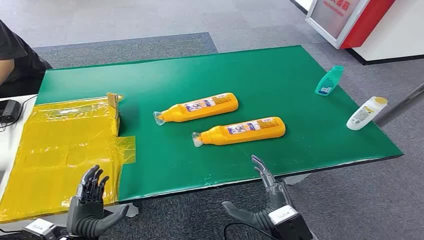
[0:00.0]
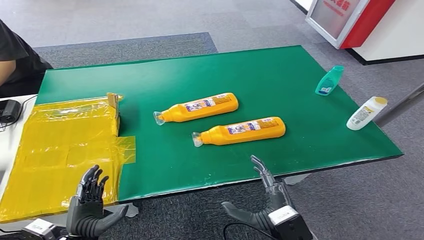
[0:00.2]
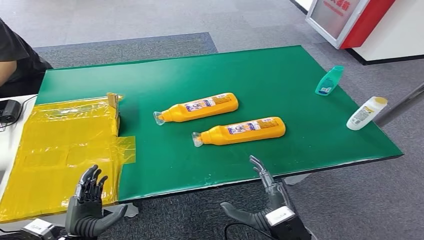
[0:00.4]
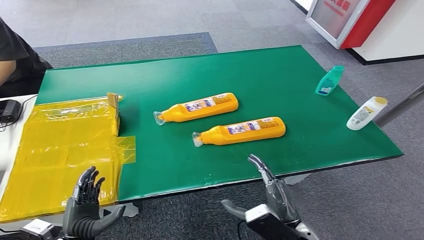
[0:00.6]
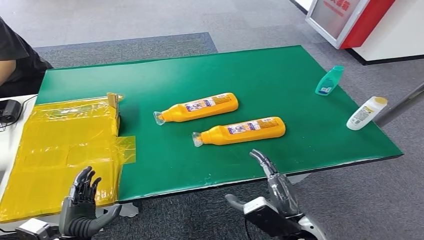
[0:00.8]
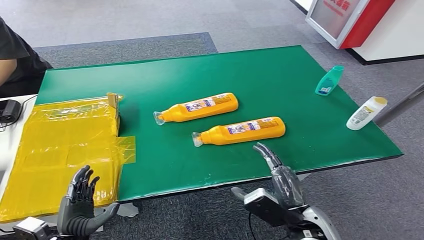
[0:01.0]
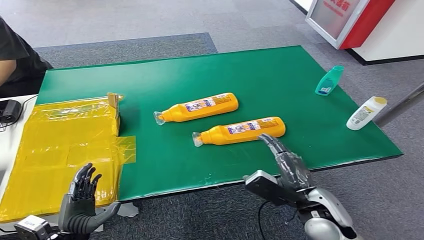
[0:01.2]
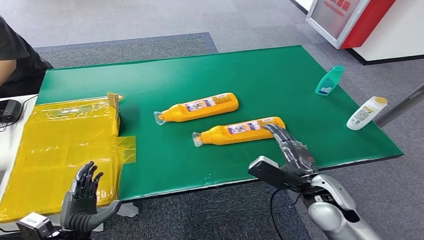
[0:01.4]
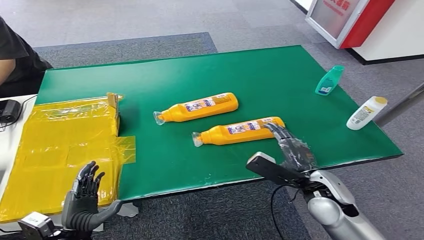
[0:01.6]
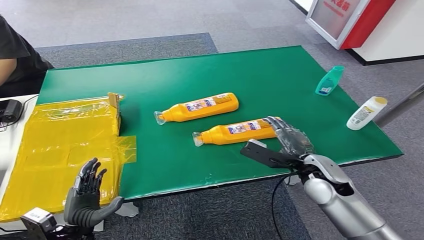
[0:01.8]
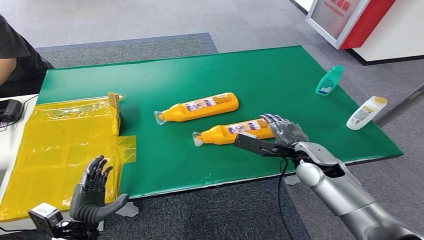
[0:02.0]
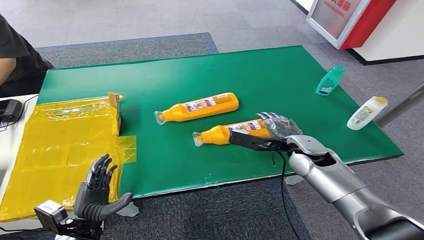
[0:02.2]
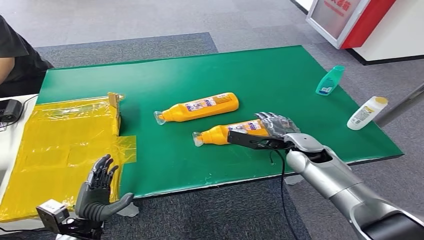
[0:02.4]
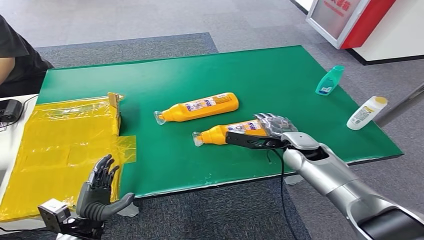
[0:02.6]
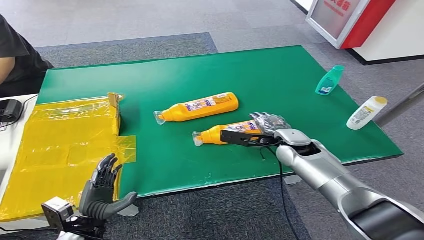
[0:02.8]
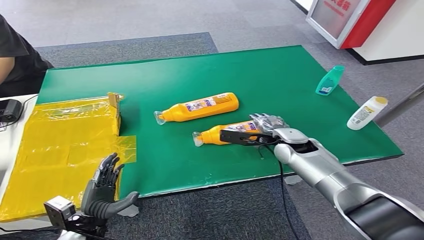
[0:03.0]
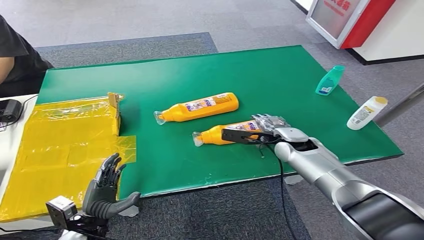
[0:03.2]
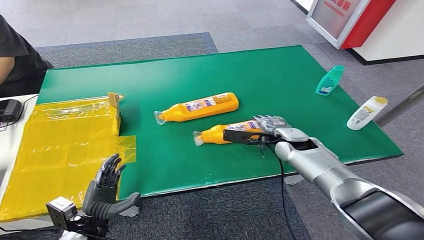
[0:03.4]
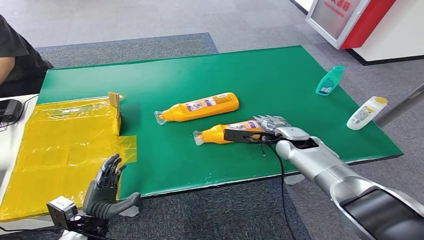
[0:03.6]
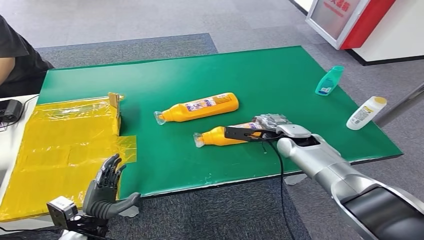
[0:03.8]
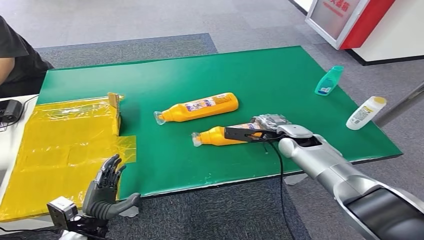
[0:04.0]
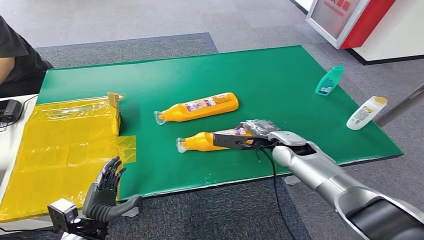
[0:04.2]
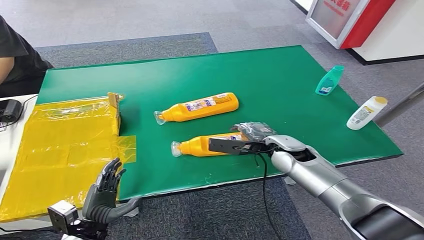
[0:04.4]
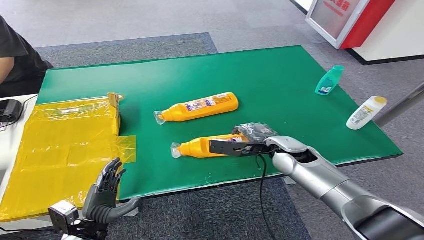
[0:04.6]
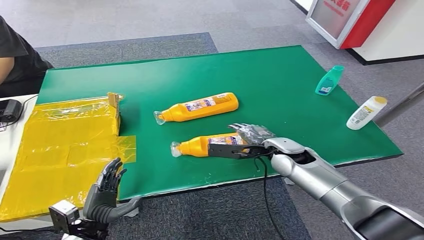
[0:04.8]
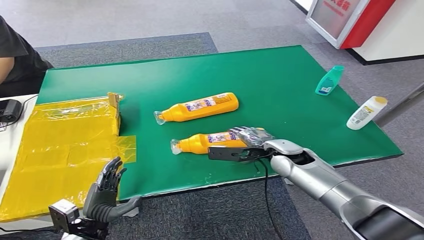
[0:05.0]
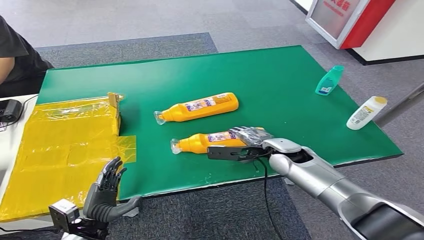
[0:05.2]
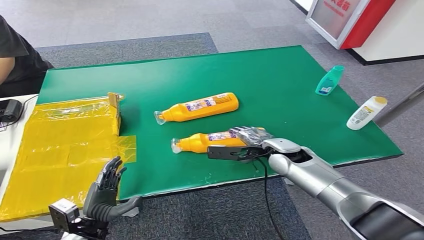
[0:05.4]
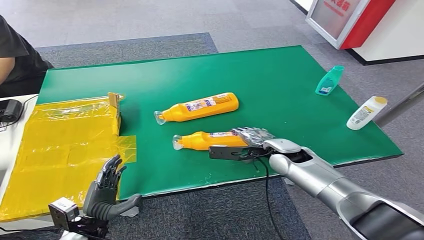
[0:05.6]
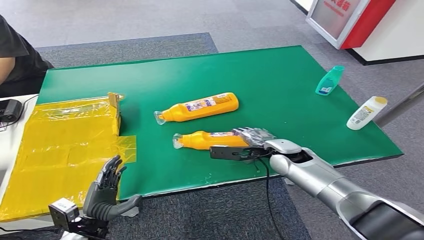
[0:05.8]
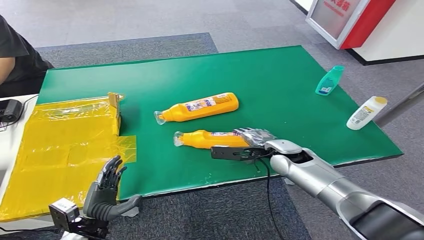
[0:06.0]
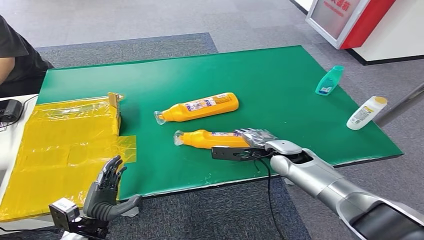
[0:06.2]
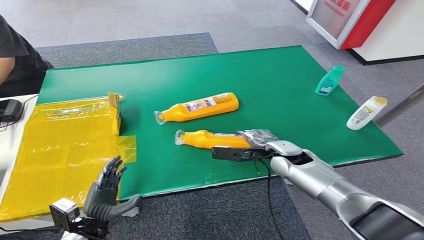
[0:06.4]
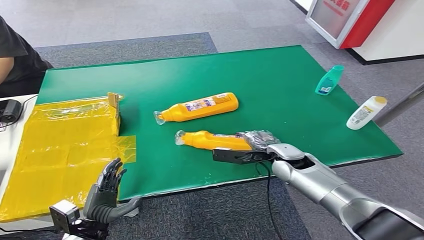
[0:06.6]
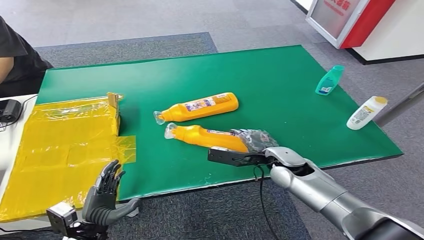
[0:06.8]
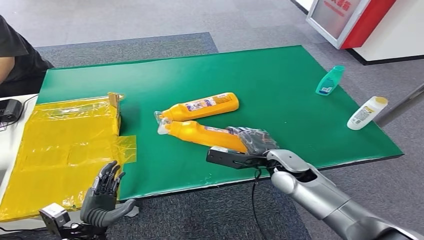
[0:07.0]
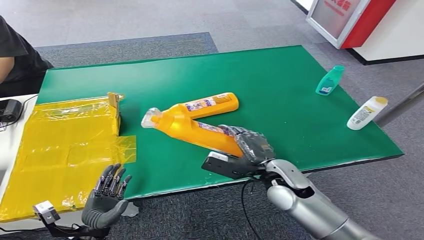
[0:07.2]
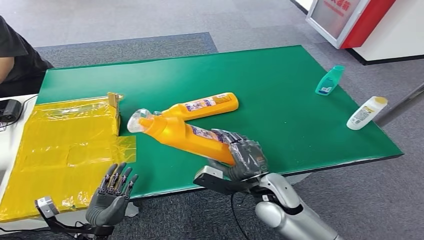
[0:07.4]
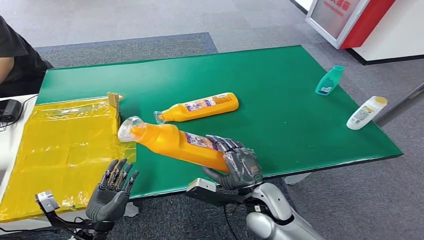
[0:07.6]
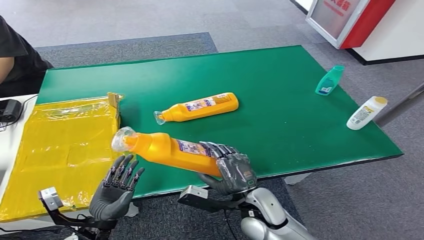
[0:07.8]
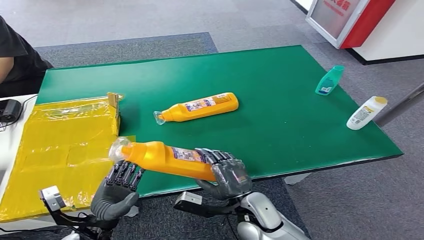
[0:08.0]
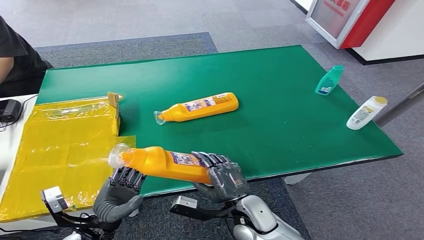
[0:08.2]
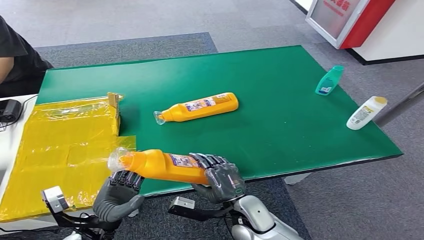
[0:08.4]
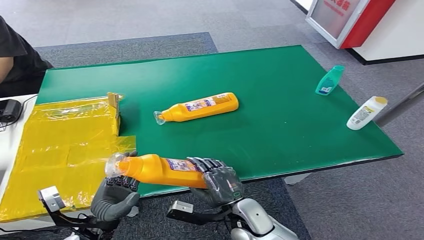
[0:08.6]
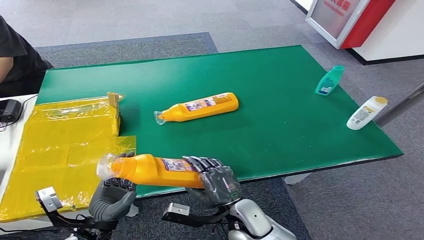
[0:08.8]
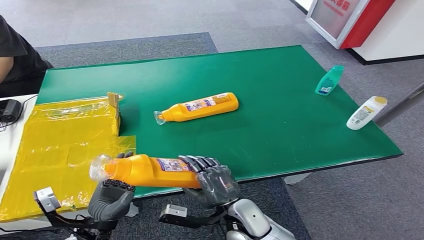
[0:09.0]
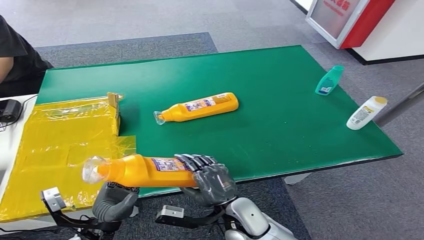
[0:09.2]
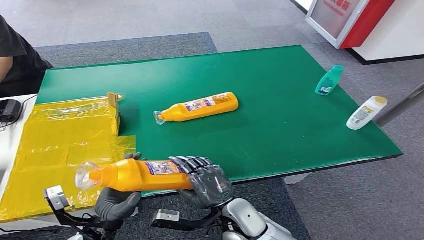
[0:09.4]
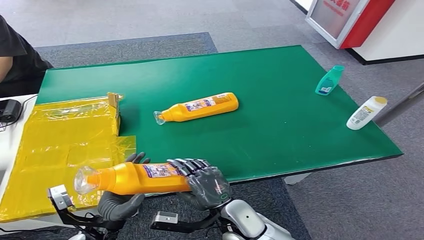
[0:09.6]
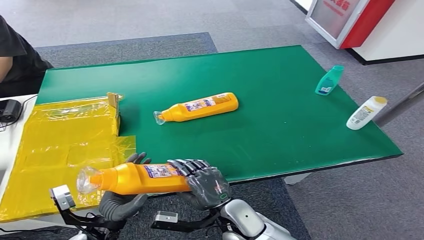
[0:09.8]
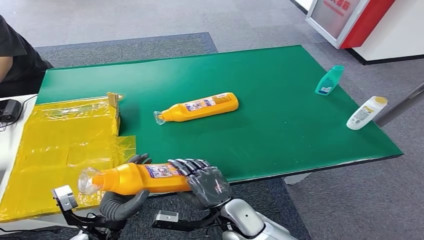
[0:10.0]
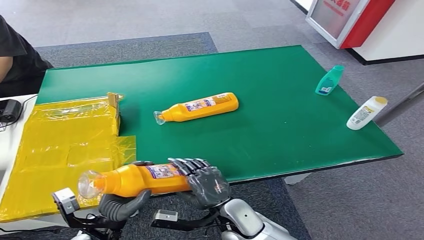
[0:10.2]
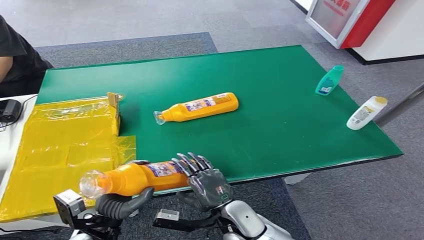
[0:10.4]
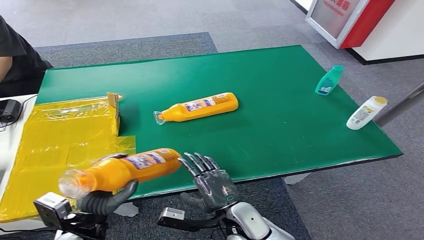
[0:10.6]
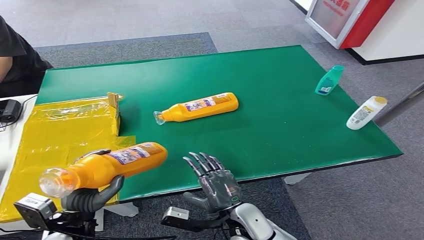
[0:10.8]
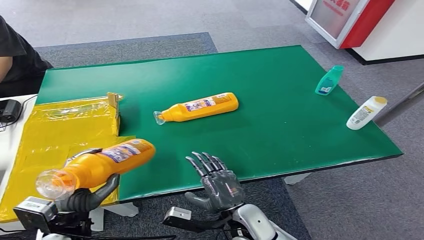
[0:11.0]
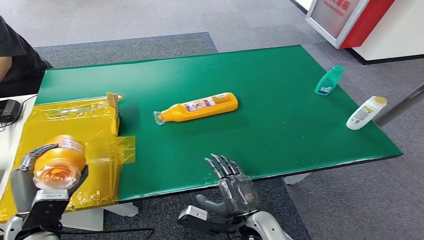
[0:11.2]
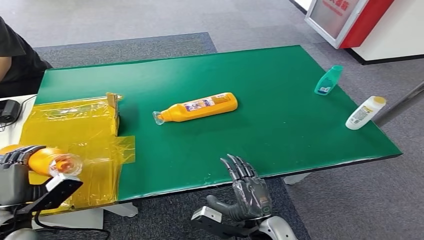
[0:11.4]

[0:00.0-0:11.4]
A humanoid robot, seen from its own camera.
Step, 0:00.0 to 0:07.6: Pick up the bottle from the table.
0:01.4 to 0:02.8: The right hand heads forward, covering some 15 cm.
0:02.8 to 0:05.6: The hands make only small movements.
0:05.6 to 0:07.2: The right hand moves backward, some 10 cm.
0:07.2 to 0:08.6: The left hand moves upward, some 5 cm. The right hand moves to the left, downward and backward, about 15 cm.
0:08.6 to 0:10.0: The hands move only a little.
0:10.0 to 0:11.4: The right hand heads to the right and backward, covering about 10 cm; the left hand travels to the left and upward by about 15 cm.

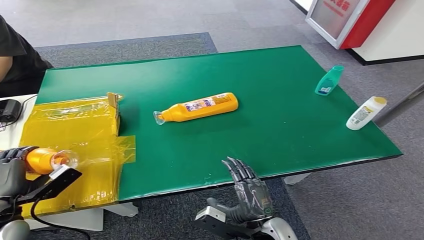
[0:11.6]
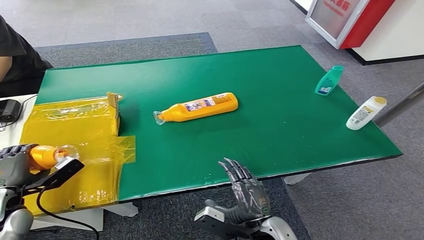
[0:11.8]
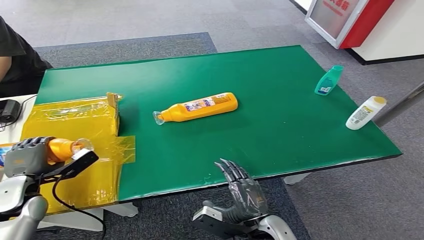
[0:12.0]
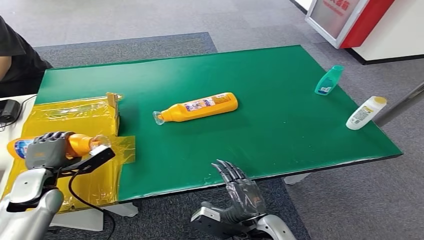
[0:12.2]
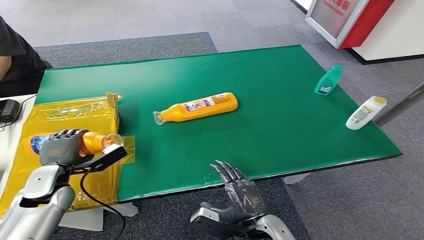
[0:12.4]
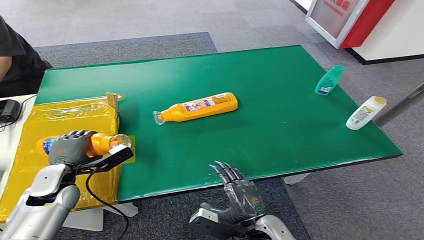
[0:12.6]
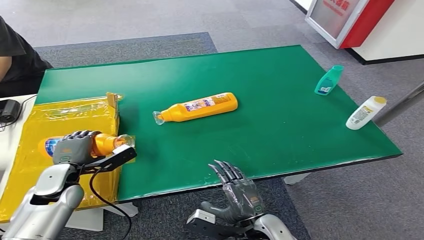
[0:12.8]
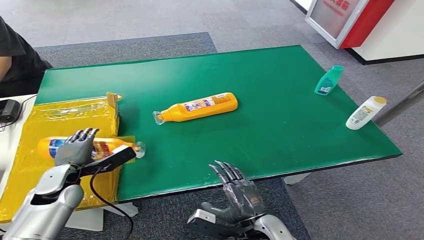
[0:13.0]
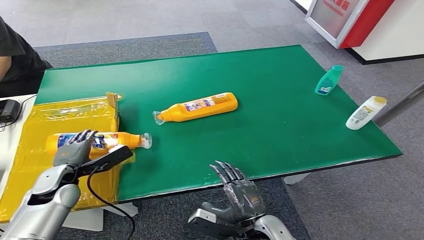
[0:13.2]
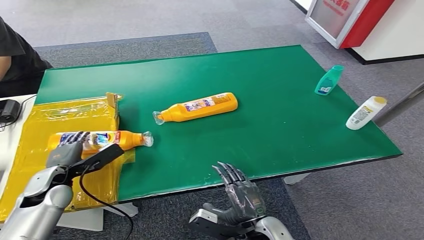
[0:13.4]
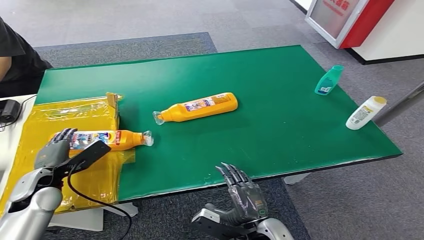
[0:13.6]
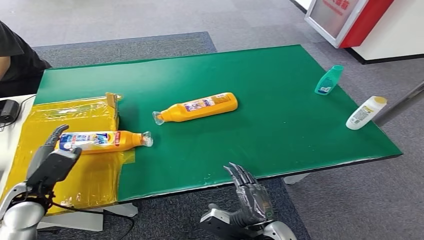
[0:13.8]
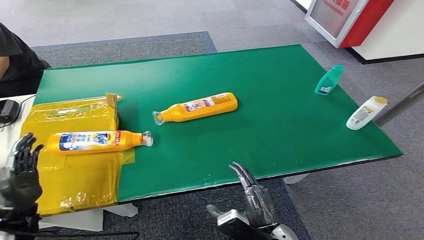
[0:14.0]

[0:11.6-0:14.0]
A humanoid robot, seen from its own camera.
Step, 0:11.6 to 0:14.0: Turn the bottle to the front side.
0:11.6 to 0:12.8: The left hand travels forward and to the right by about 10 cm.
0:12.8 to 0:14.0: The left hand goes some 10 cm backward and to the left.

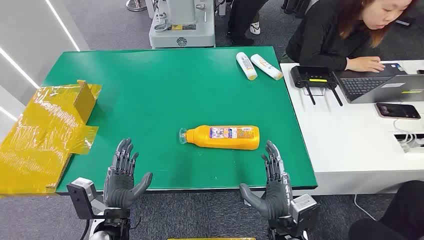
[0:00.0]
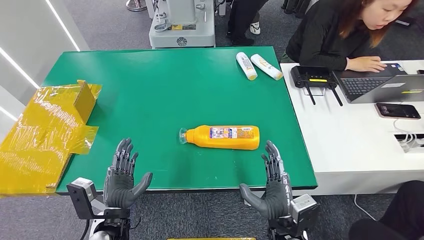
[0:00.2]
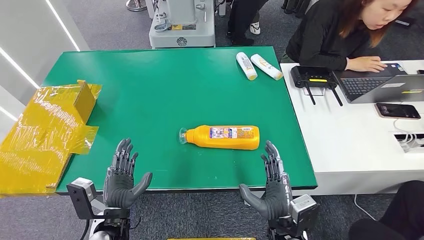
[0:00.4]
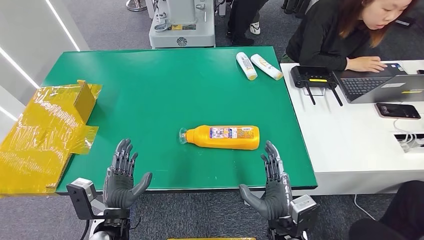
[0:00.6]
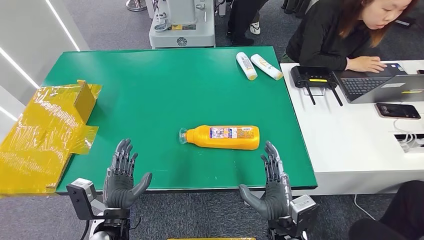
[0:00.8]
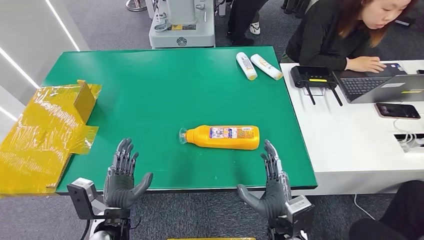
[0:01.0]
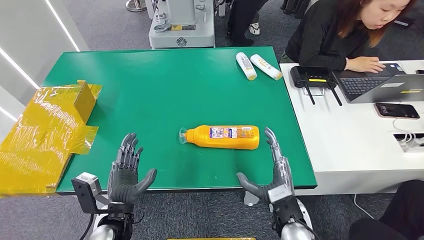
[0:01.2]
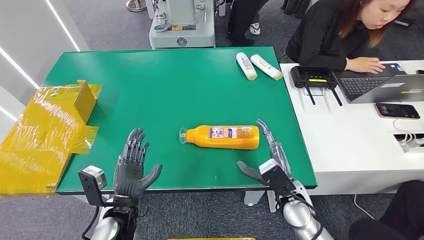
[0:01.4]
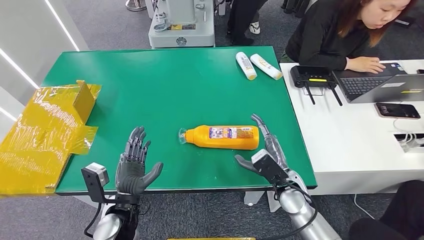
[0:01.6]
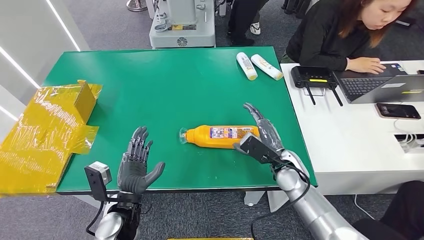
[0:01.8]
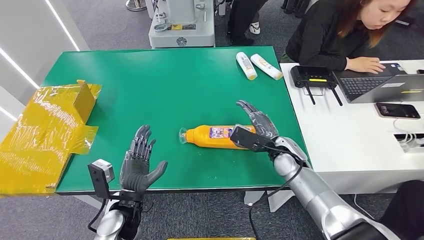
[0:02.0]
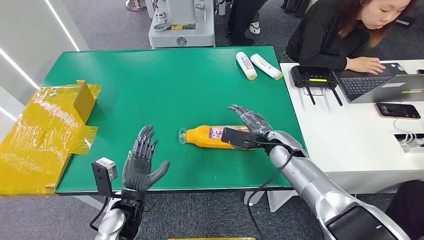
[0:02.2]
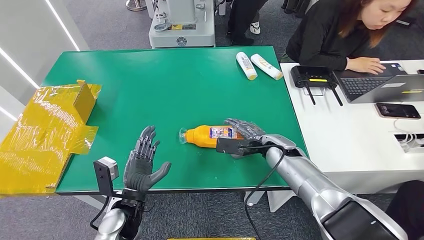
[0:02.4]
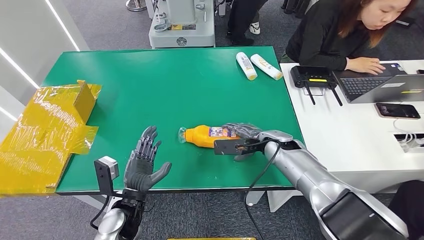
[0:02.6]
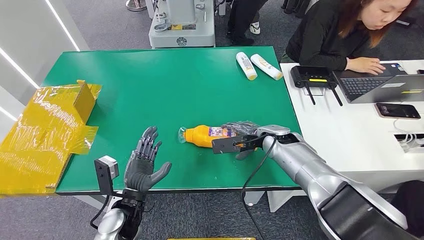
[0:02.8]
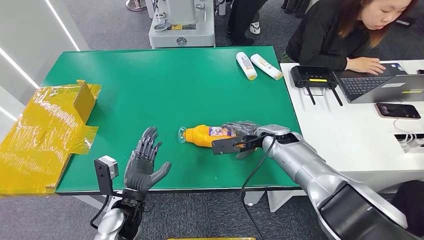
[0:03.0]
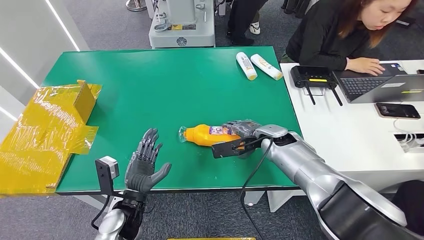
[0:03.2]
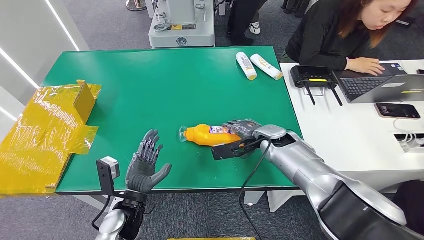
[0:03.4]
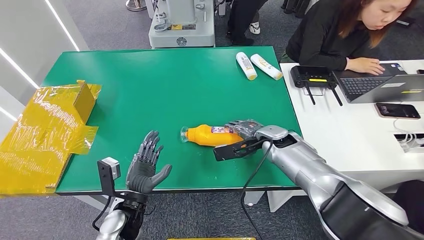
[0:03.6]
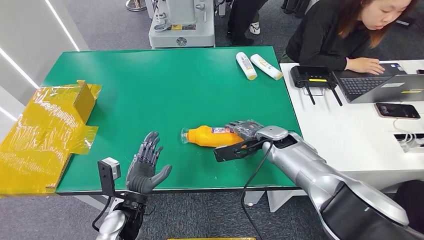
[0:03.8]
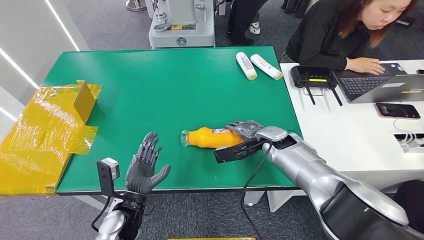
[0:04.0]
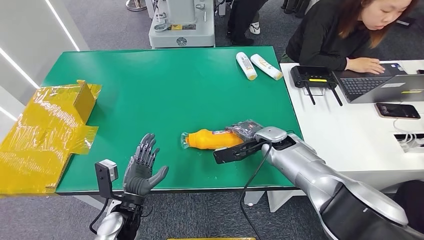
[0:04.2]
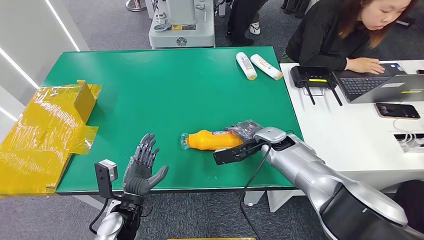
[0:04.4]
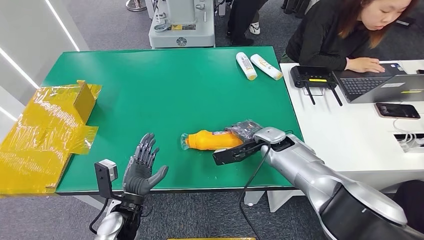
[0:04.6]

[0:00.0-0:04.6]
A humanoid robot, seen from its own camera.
0:01.6 to 0:03.0: The right hand travels forward and upward by roughly 15 cm.
0:03.0 to 0:04.6: The hands stay close to where they were, moving slightly.
